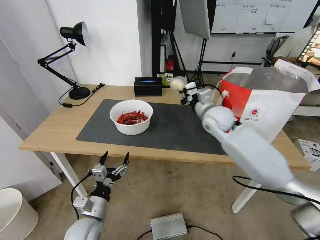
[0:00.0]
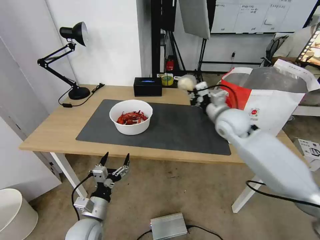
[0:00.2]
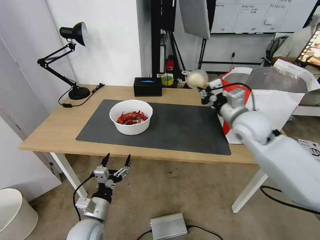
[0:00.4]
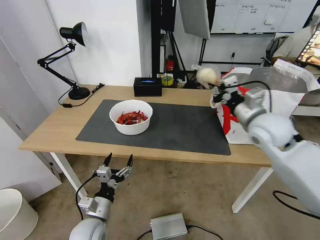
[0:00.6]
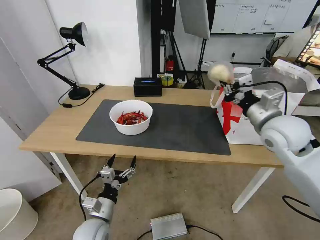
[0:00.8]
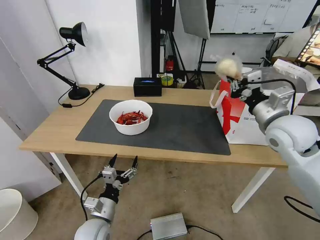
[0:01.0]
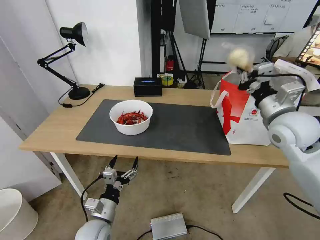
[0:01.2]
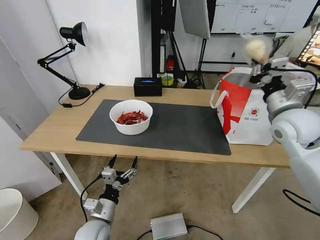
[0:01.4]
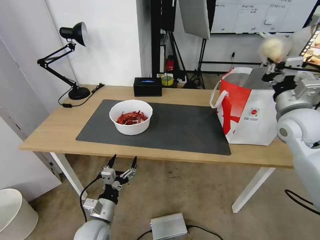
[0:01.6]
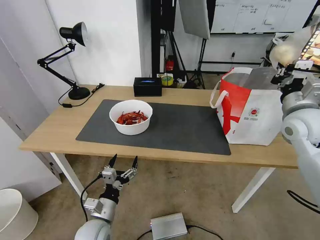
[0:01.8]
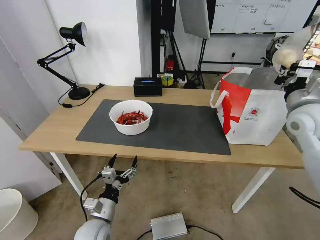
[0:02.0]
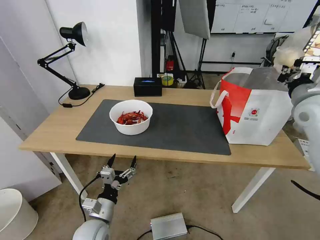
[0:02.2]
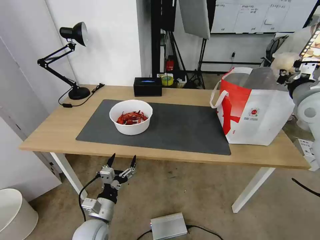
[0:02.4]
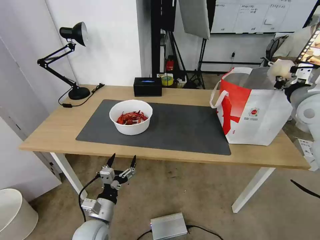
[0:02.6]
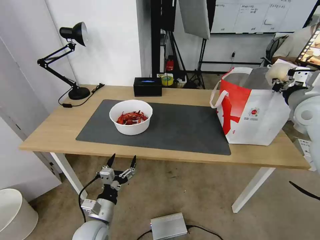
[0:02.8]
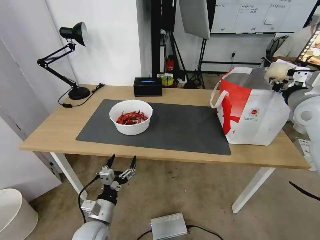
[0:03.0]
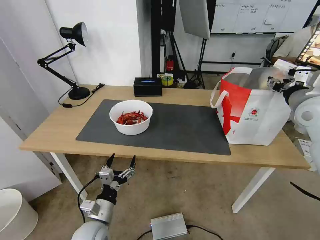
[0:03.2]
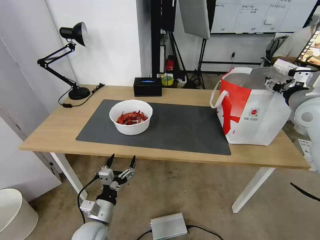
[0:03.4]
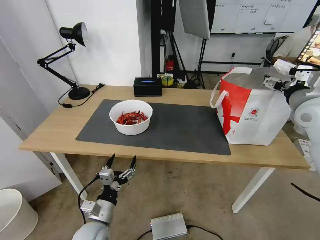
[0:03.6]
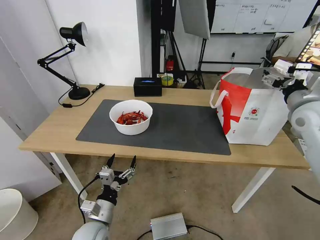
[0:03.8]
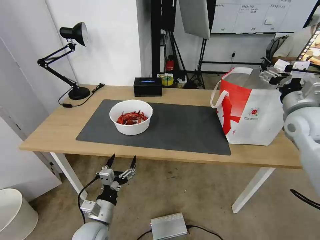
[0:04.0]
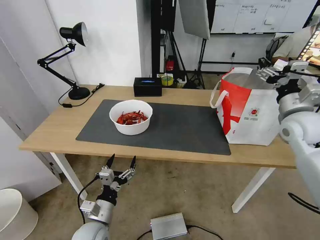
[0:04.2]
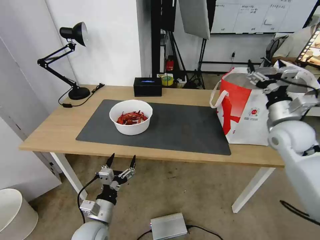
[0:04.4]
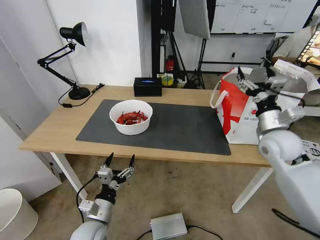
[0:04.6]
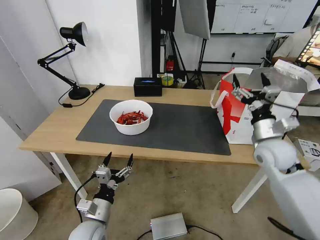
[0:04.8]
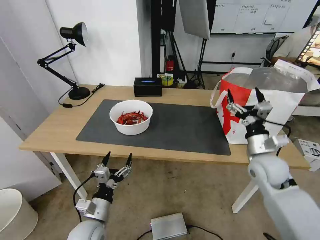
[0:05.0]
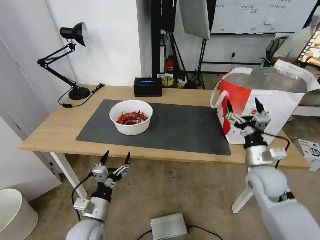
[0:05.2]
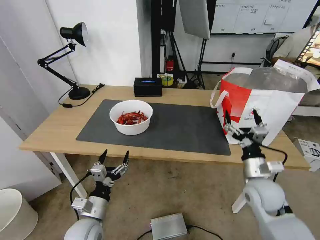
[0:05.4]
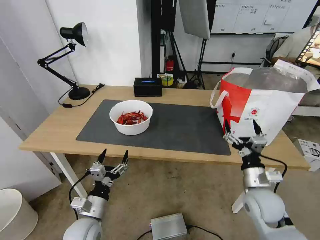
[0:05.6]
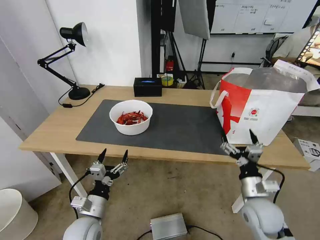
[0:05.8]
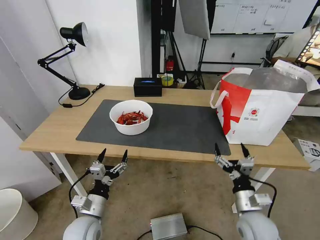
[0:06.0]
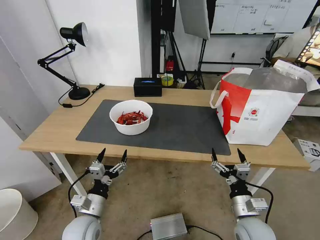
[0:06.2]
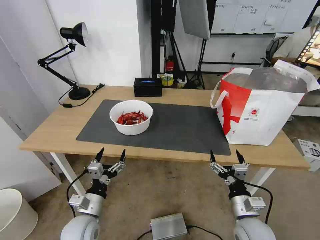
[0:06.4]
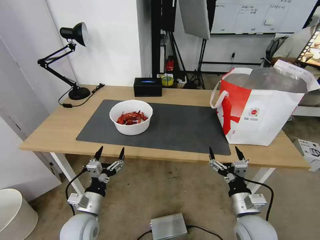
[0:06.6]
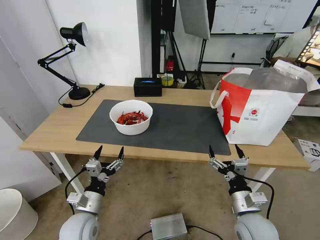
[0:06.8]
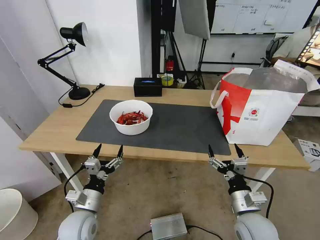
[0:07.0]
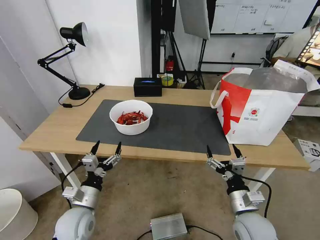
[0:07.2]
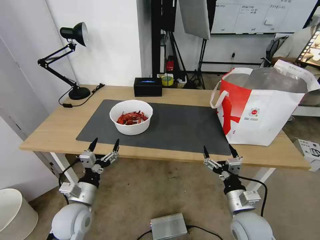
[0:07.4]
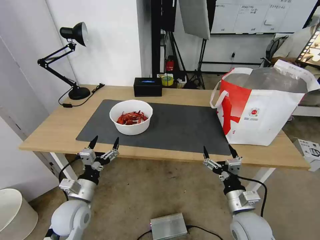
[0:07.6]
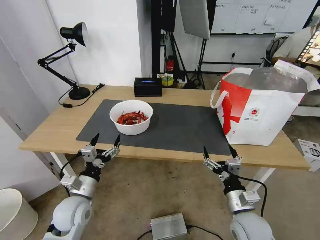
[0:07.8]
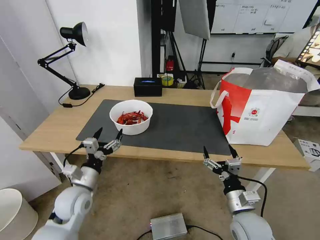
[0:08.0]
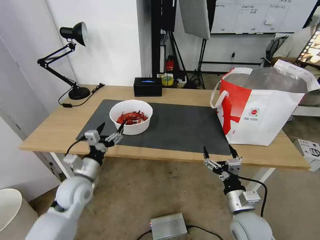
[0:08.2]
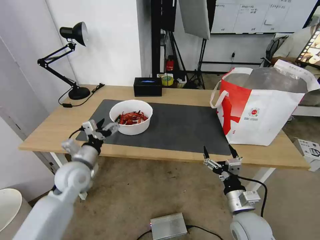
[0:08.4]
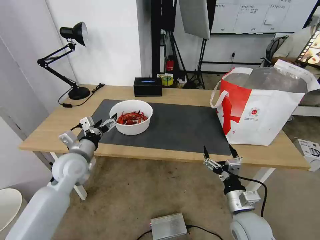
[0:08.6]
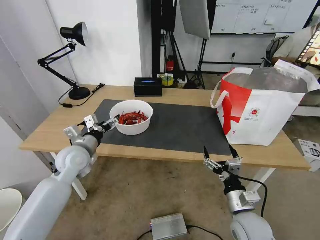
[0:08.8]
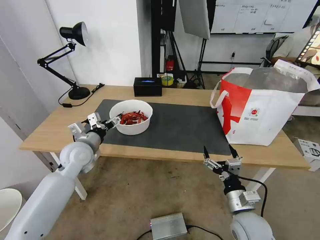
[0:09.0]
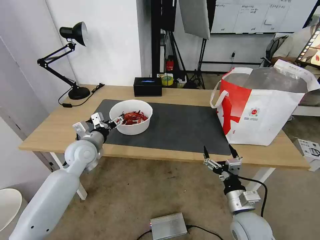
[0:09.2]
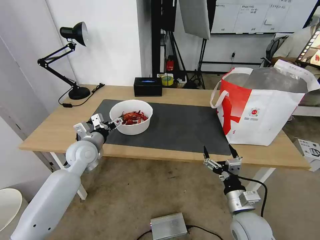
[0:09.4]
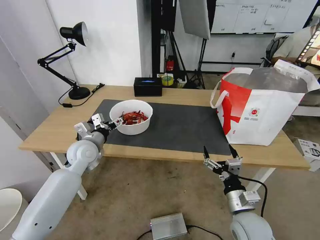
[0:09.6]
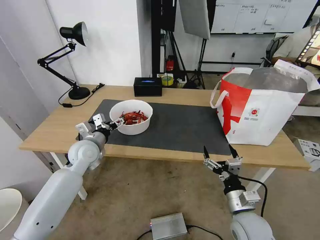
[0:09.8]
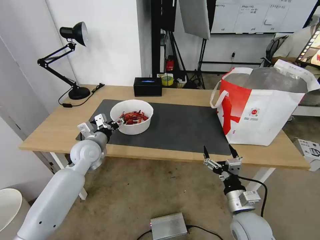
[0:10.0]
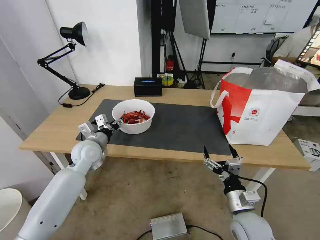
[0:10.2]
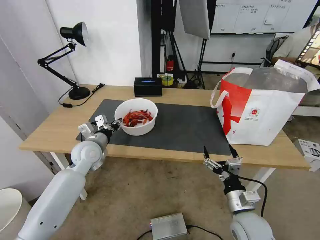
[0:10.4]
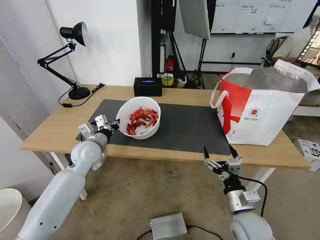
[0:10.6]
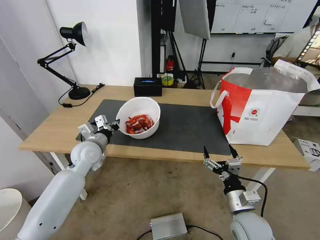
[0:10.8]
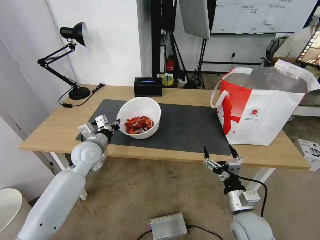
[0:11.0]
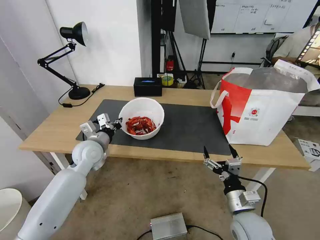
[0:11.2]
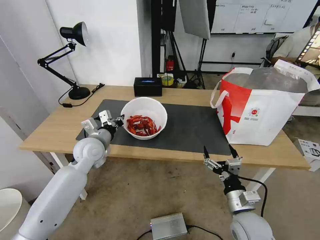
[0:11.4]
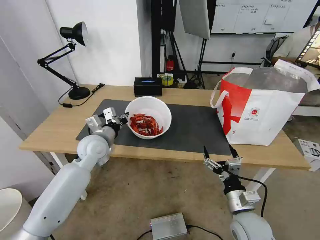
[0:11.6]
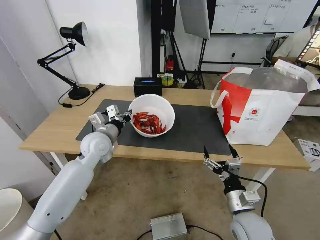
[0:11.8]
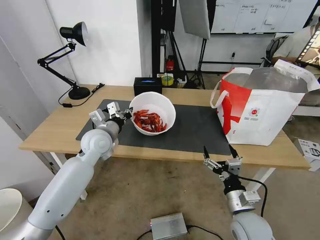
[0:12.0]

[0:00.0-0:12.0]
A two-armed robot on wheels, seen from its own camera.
Task of the whole recording: Pick up the trash from the table and place it into the takeout bag.
0:00.0 to 0:01.6: The right gripper travels to the right, backward and upward by roughly 25 cm.
0:01.6 to 0:03.0: The right gripper shifts by some 5 cm.
0:03.0 to 0:04.4: The right gripper moves downward, some 5 cm, and opens up.
0:04.4 to 0:06.0: The right gripper shifts approximately 30 cm downward, backward and to the left.
0:06.0 to 0:07.6: The left gripper moves roughly 5 cm.
0:07.6 to 0:09.0: The left gripper heads forward and upward, covering some 20 cm.
0:09.0 to 0:10.4: The left gripper closes.
0:10.4 to 0:12.0: The left gripper shifts by about 5 cm.

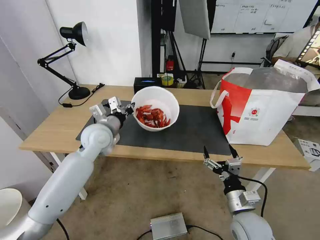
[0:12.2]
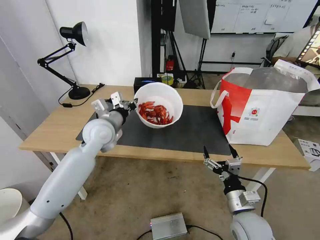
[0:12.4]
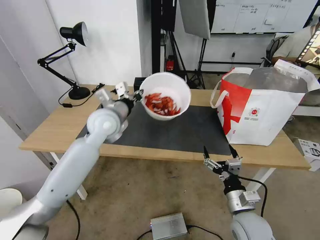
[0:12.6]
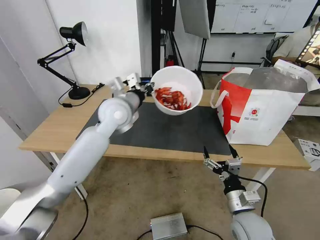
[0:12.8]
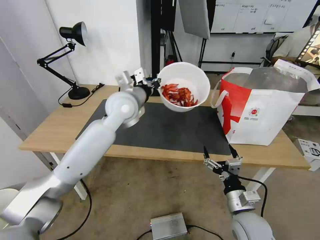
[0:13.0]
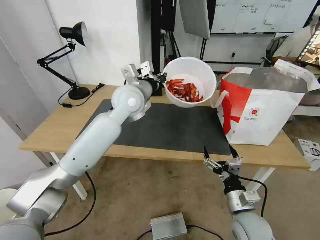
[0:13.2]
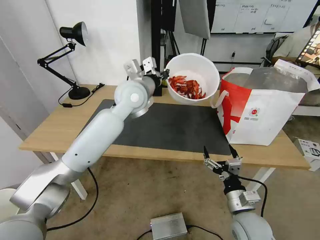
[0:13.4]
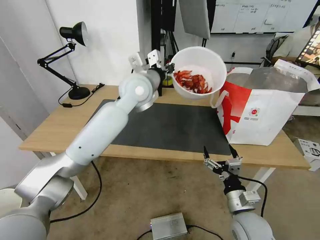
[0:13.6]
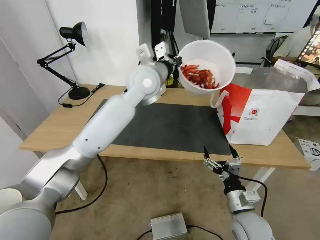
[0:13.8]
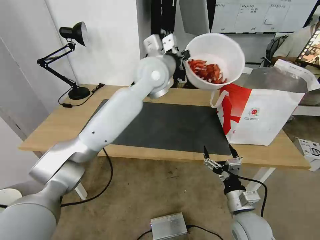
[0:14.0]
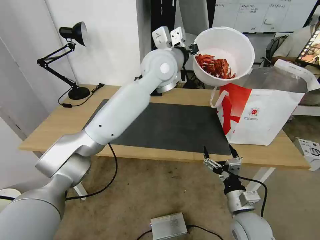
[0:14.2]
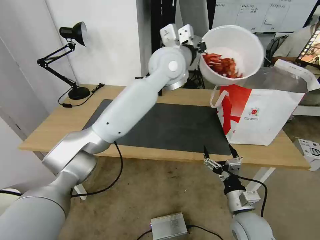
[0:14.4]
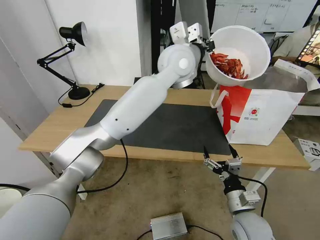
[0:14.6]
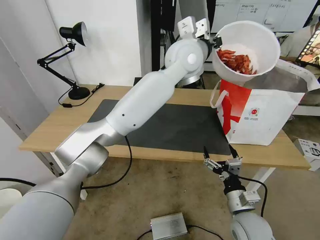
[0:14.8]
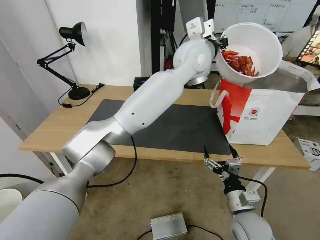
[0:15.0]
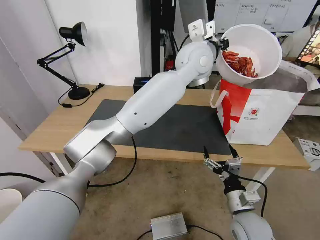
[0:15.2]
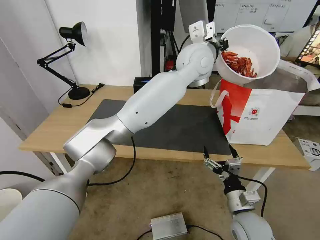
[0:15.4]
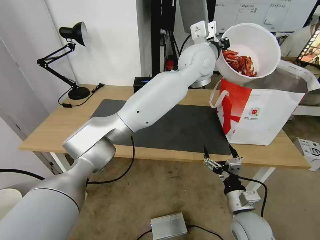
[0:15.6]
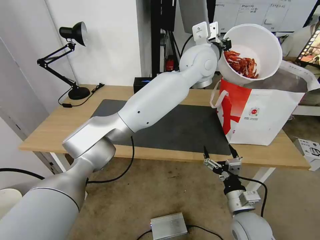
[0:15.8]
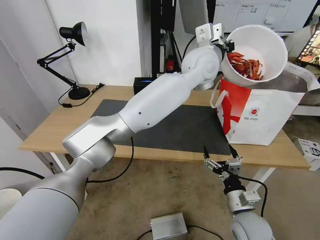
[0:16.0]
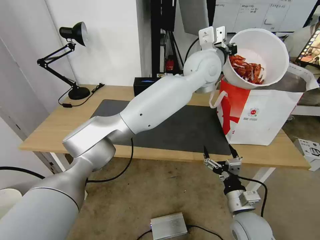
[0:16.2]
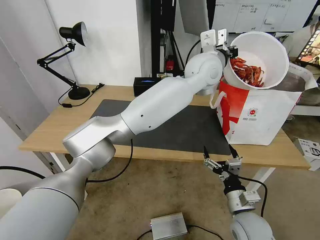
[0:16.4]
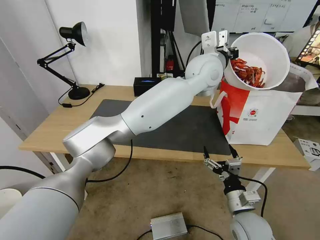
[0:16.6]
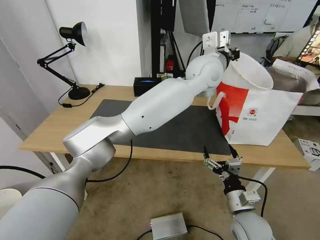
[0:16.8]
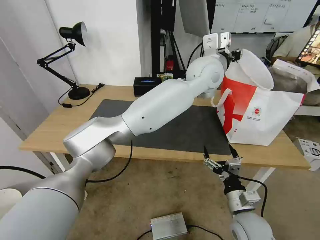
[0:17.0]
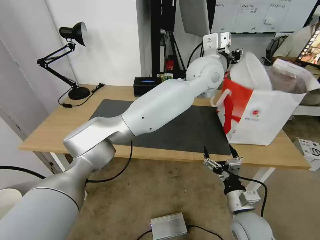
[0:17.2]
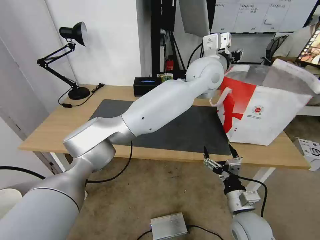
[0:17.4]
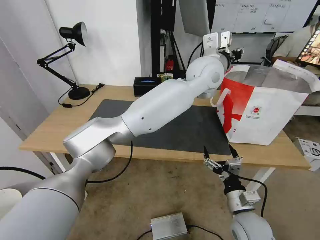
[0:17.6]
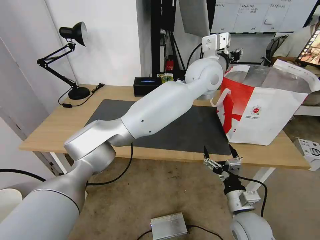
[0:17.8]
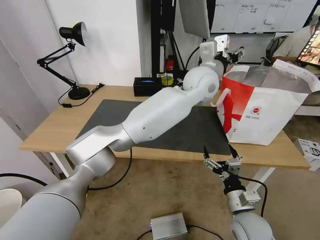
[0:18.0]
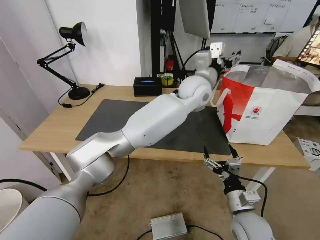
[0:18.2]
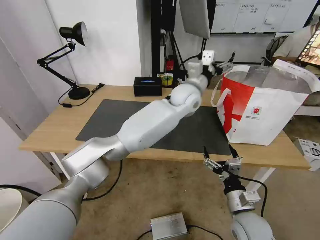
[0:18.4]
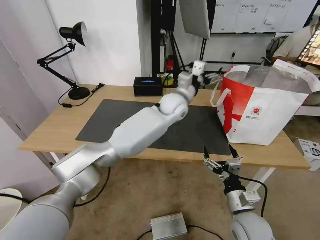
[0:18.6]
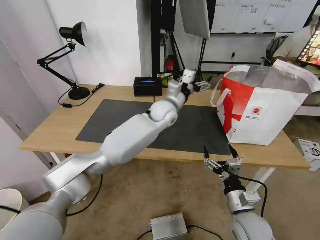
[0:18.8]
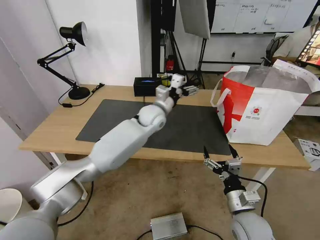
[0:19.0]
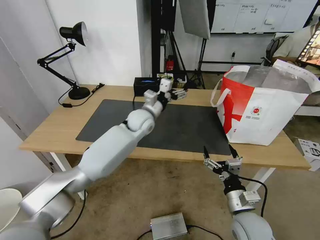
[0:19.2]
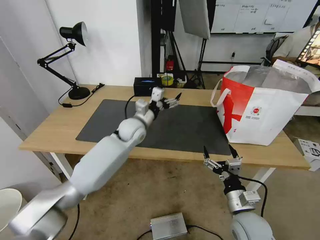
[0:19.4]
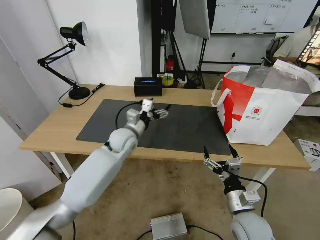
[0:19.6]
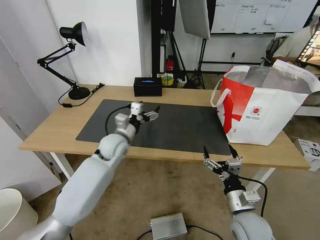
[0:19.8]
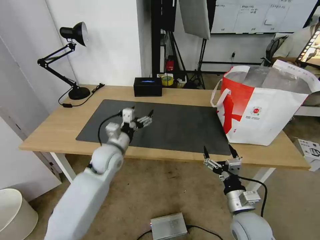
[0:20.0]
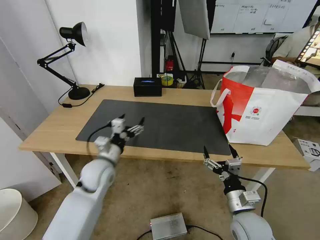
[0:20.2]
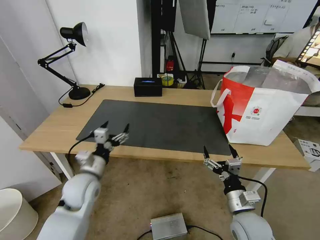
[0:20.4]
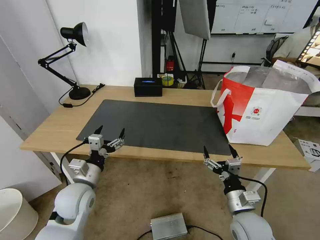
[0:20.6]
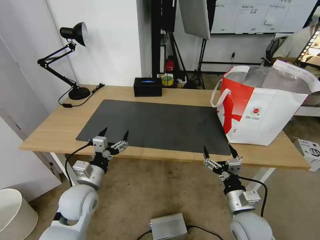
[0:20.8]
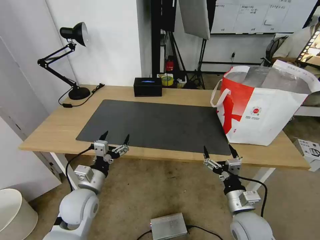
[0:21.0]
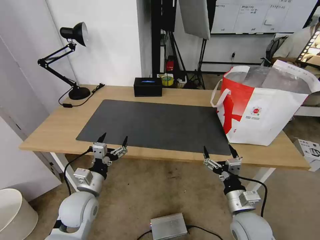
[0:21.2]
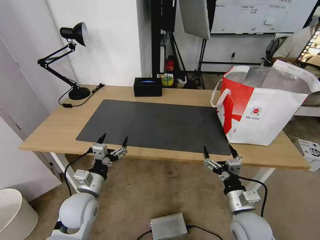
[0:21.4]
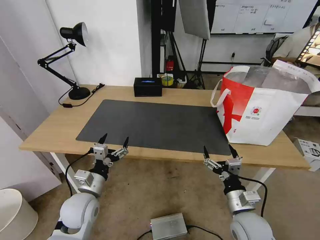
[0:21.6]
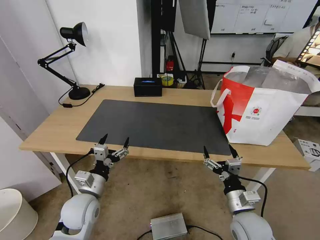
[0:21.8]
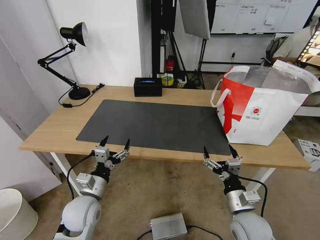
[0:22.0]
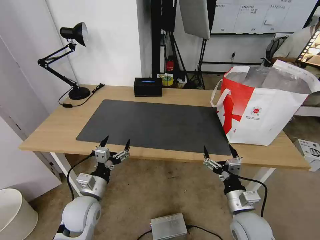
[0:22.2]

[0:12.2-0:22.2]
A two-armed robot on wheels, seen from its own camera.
Task of the whole recording: Pick up the trash from the table and place it into the takeout bag.
0:12.2 to 0:13.6: The left gripper travels upward, to the right and forward by some 20 cm.
0:13.6 to 0:15.0: The left gripper goes roughly 15 cm to the right and upward.
0:15.0 to 0:16.4: The grippers stay close to where they were, moving slightly.
0:16.4 to 0:18.0: The left gripper opens its fingers.
0:18.0 to 0:19.4: The left gripper shifts approximately 30 cm to the left and downward.
0:19.4 to 0:20.8: The left gripper goes some 25 cm backward and to the left.
0:20.8 to 0:22.2: The grippers make only small movements.
